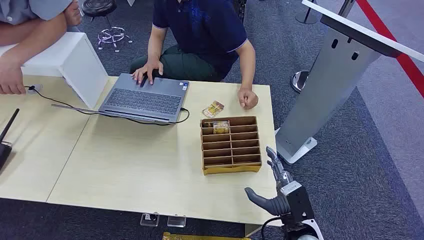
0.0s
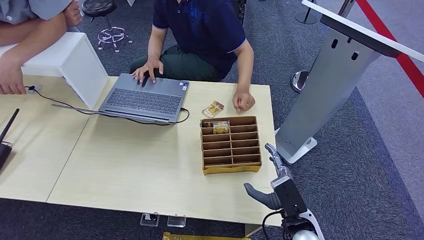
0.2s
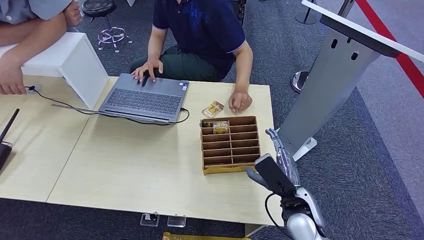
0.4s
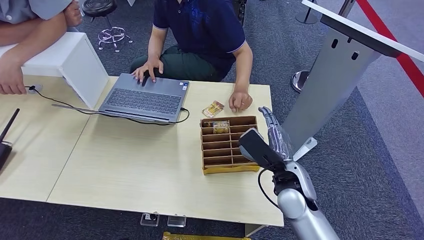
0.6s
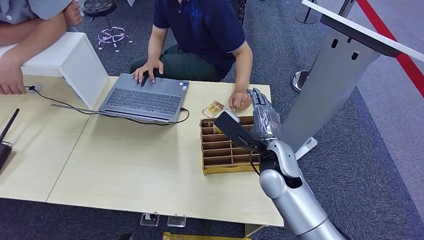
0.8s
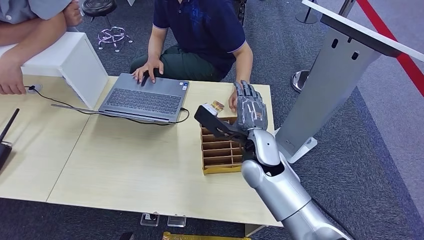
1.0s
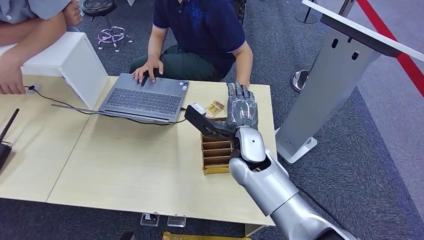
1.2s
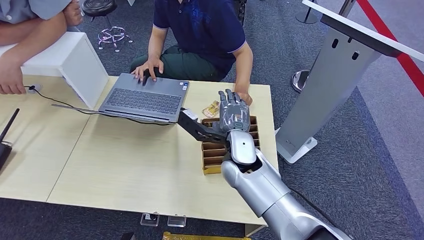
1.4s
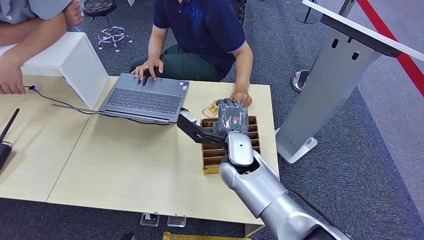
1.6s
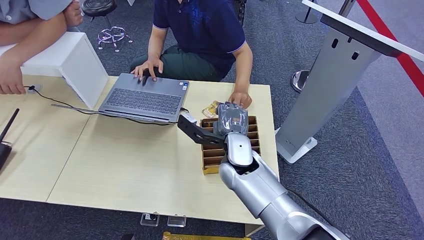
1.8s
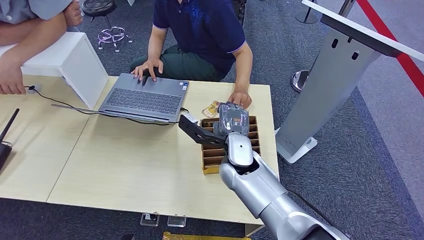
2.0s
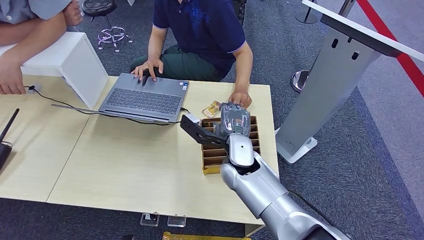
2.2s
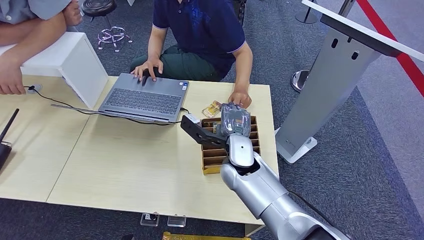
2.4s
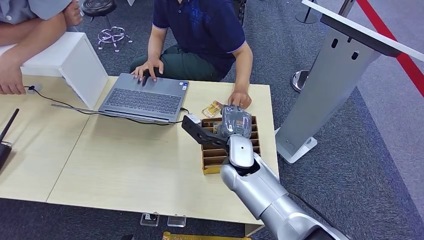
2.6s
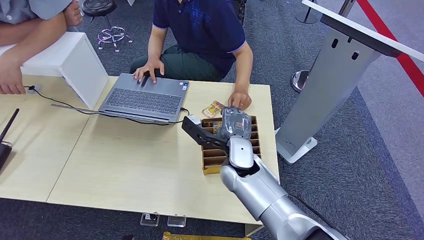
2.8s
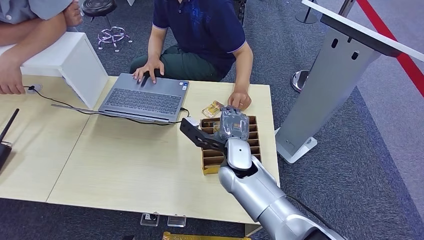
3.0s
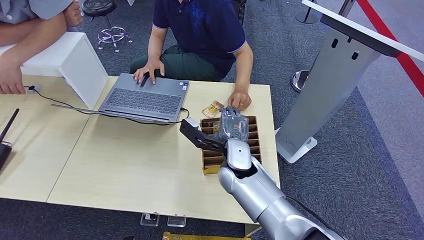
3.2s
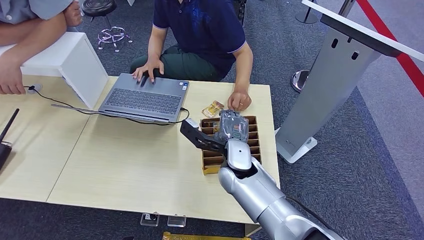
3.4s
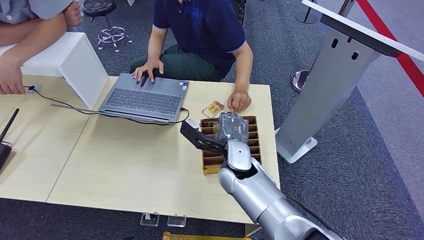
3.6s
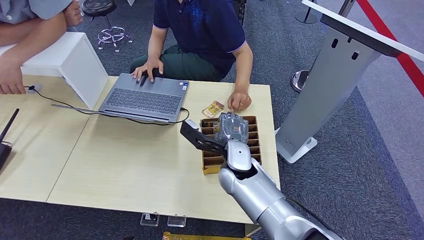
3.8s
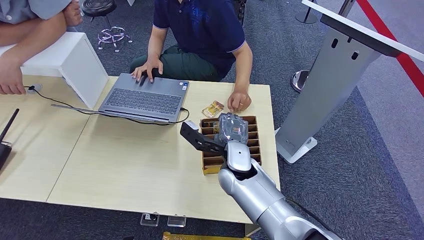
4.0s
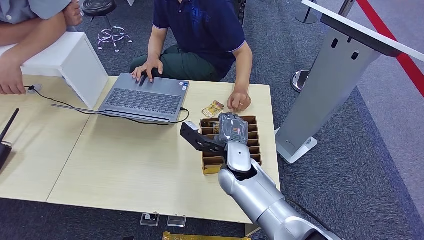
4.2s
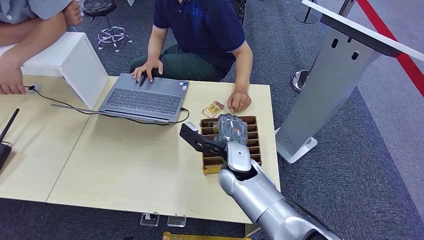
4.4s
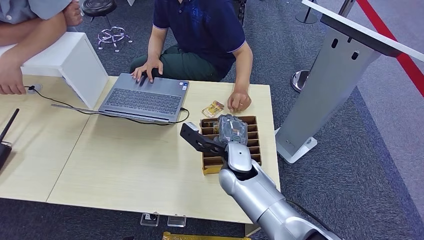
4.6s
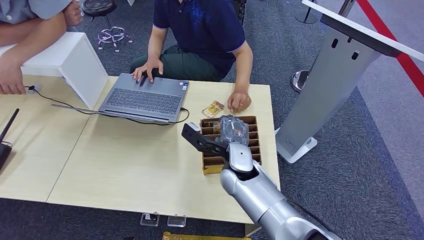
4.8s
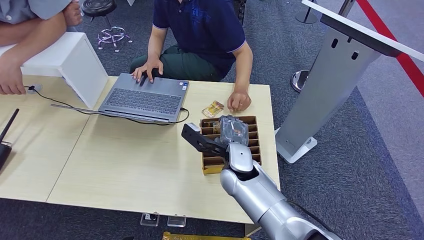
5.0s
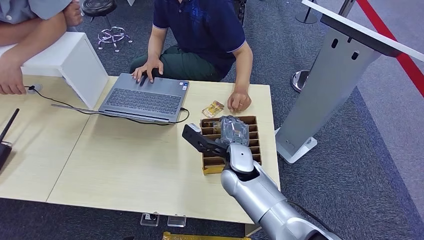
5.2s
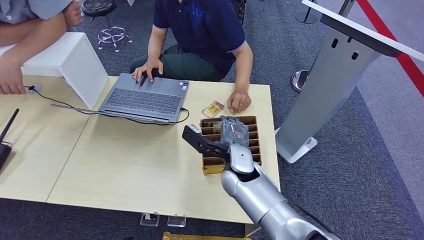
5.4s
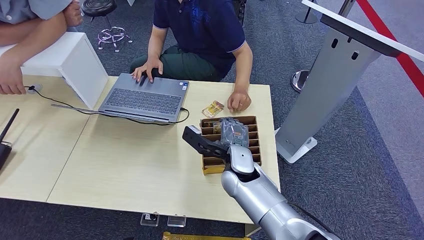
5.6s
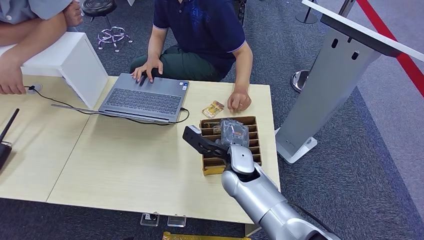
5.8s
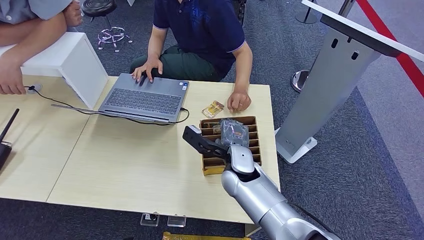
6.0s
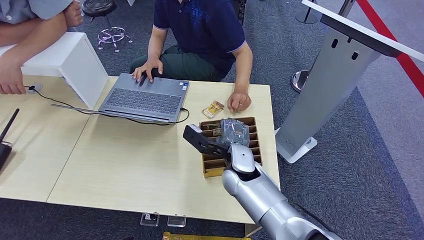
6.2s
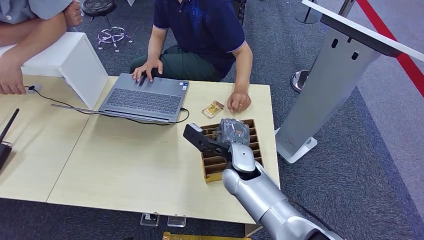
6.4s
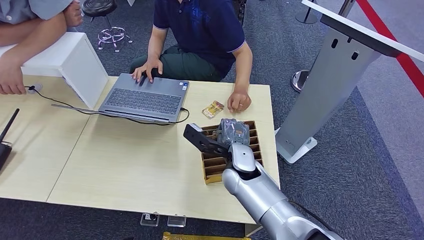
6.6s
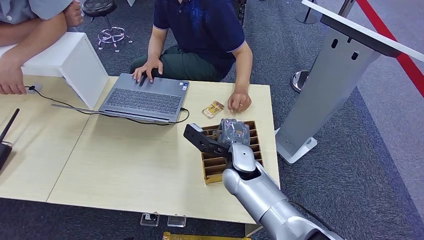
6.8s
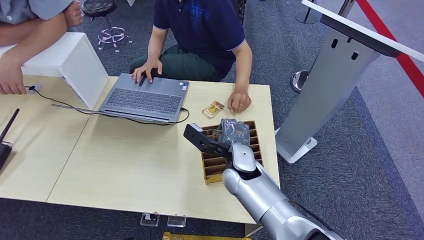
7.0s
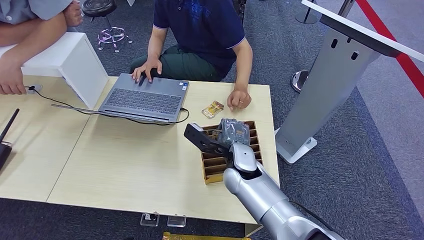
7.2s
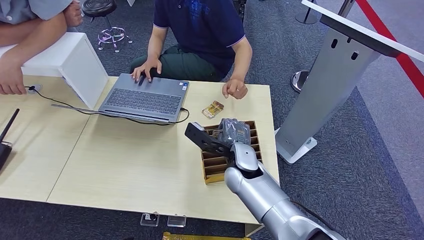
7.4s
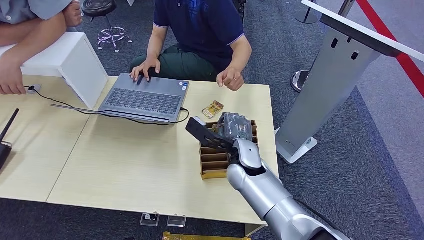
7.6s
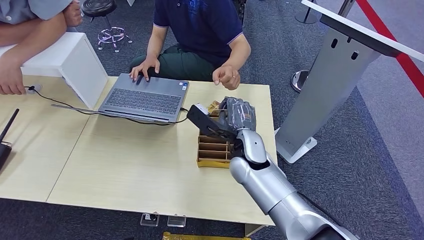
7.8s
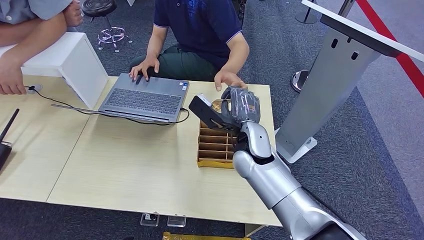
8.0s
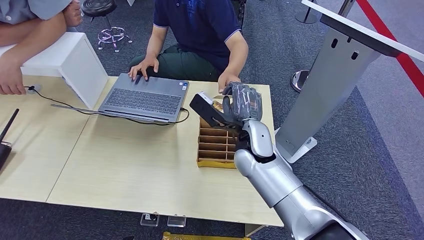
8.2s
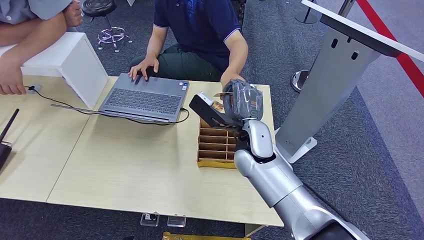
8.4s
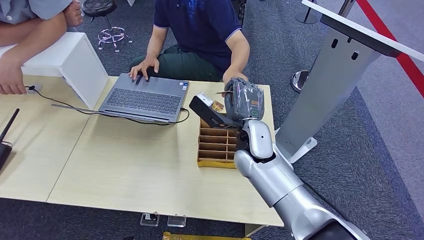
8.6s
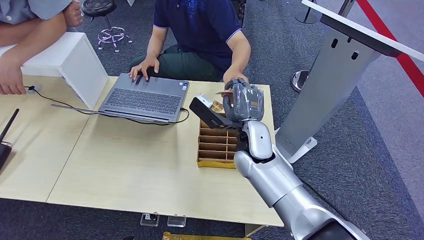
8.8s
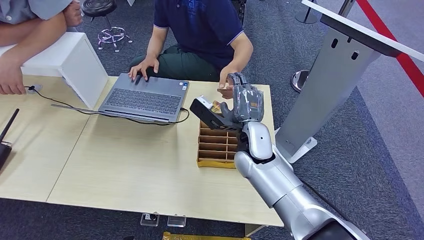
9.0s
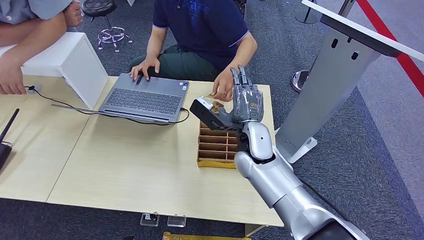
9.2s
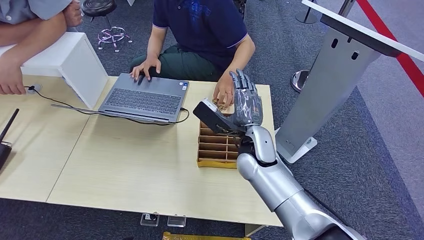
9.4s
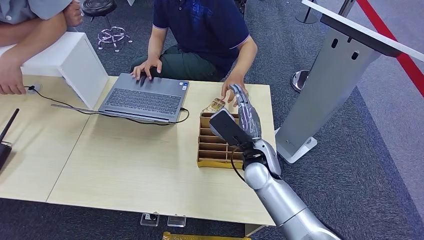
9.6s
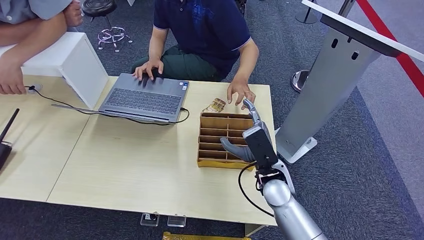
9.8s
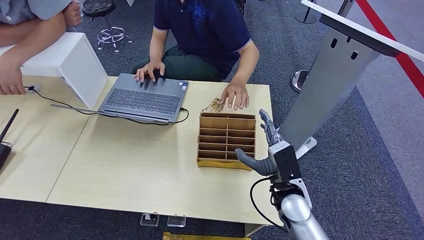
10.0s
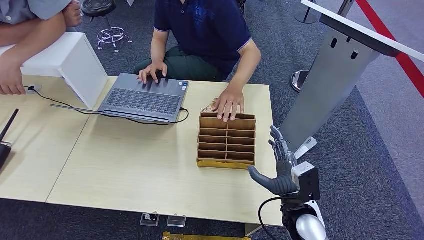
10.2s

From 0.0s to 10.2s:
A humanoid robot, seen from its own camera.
Step, from 0.0s to 7.8s: Pick up the key card from the card box.
Step, from 8.0s to 10.2s: Hand the key card to the target.
From 1.4s to 3.0s: There are only small adjustments of the hands.
From 3.0s to 4.4s: Both hands stay put.
From 4.4s to 5.8s: The two hands keep their place.
From 5.8s to 7.2s: The two hands keep their place.
From 7.2s to 8.8s: The right hand moves upward, approximately 5 cm.
From 8.8s to 10.2s: The right hand shifts some 20 cm to the right, backward and downward.

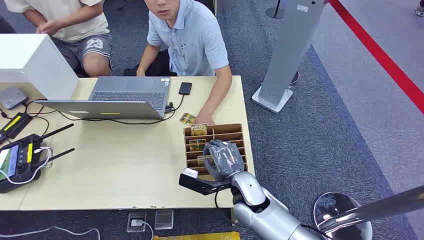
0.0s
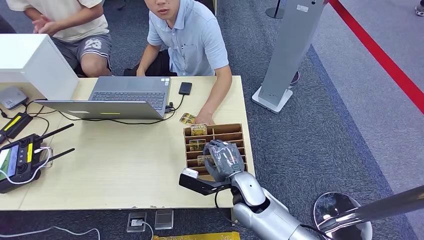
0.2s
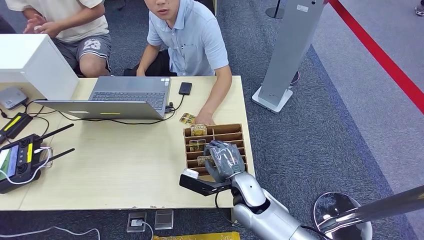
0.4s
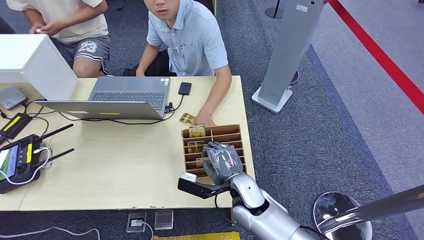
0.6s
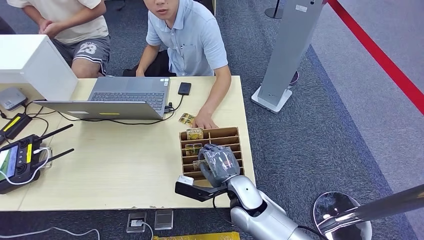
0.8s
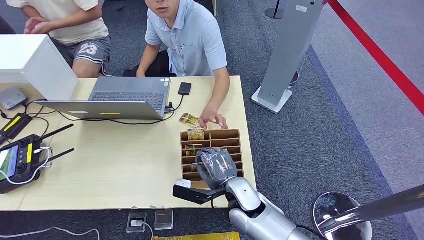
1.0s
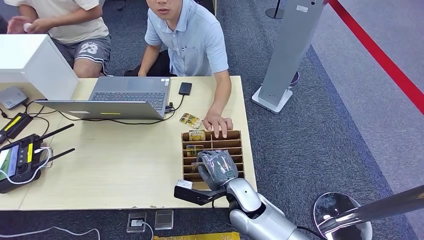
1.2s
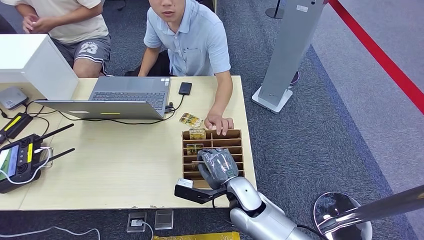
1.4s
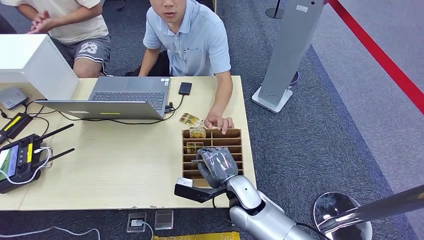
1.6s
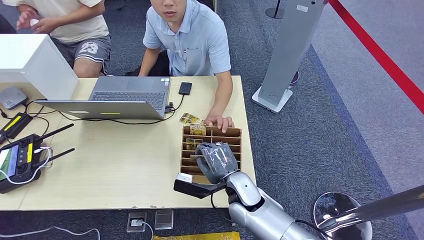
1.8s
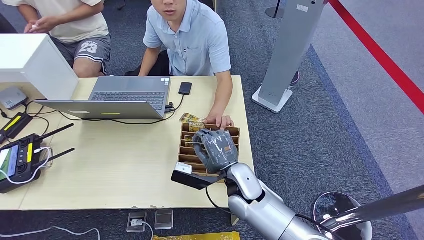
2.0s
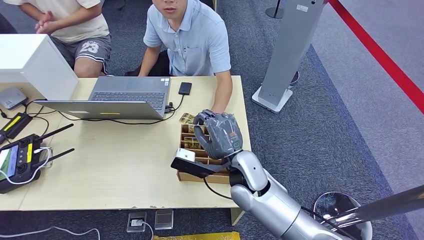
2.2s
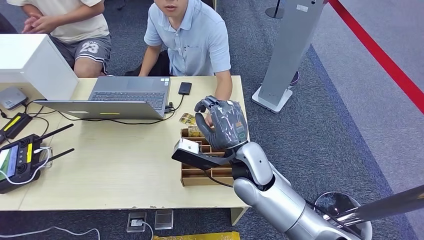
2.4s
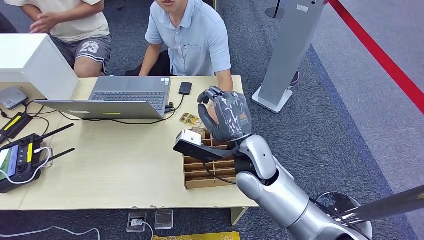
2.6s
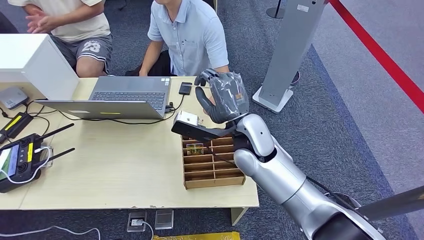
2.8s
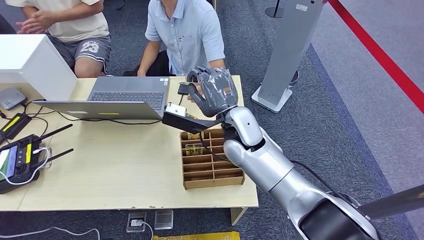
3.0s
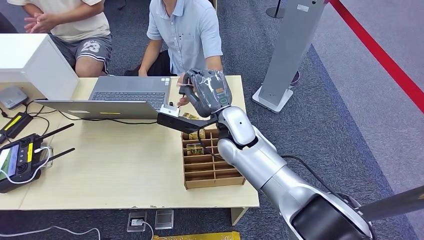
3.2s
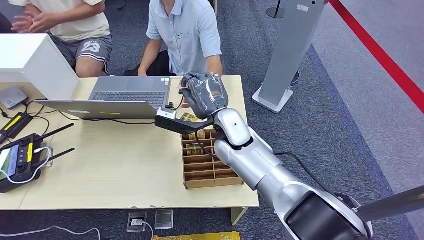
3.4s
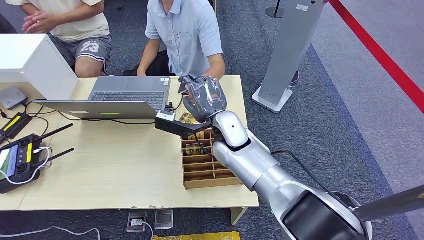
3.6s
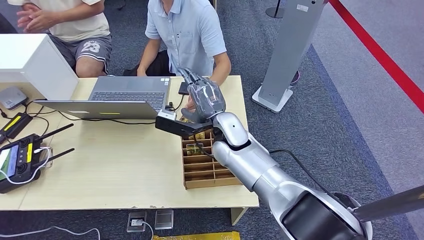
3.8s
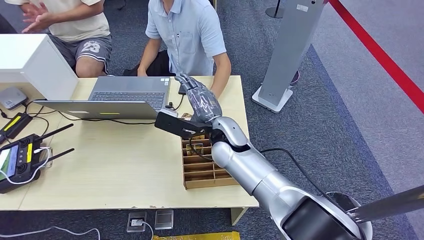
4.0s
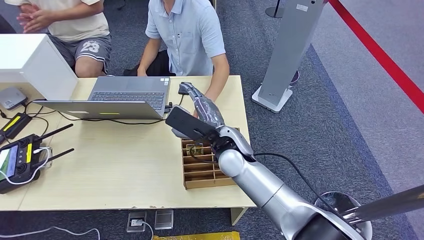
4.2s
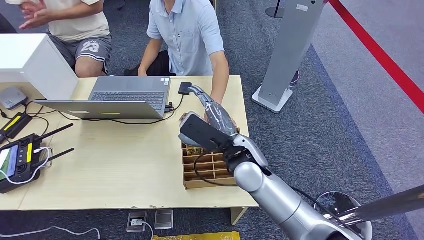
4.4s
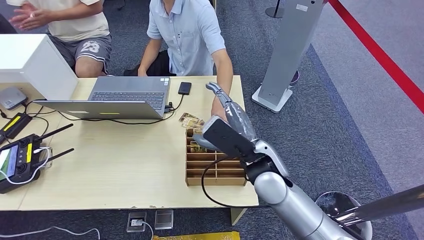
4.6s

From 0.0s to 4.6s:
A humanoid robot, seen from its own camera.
Step, from 0.0s to 2.2s: Pick up the key card from the card box.
Step, from 3.0s to 4.6s: Hand the key card to the target.
From 1.6s to 3.0s: The right hand travels upward and forward by roughly 20 cm. The left hand travels to the left by about 15 cm.
From 3.0s to 4.6s: The right hand heads backward, covering approximately 10 cm.

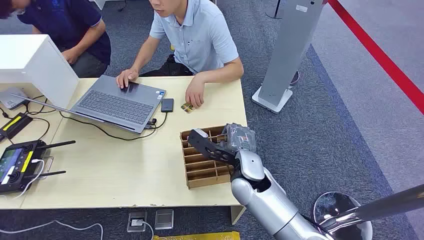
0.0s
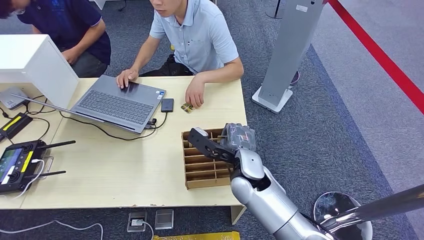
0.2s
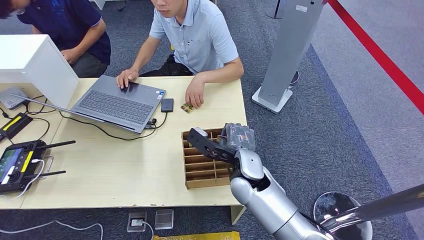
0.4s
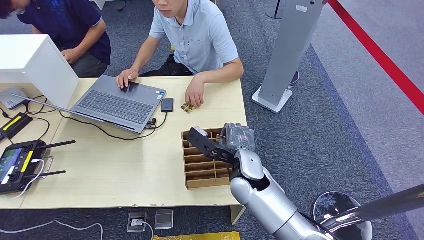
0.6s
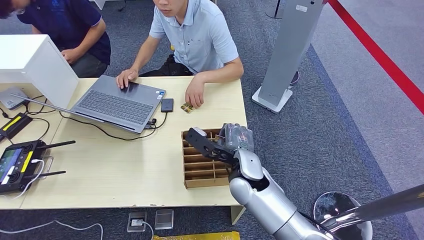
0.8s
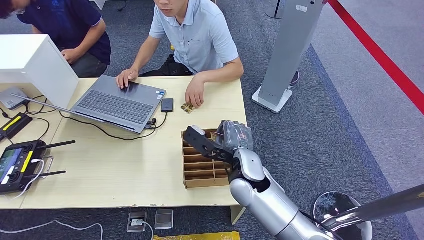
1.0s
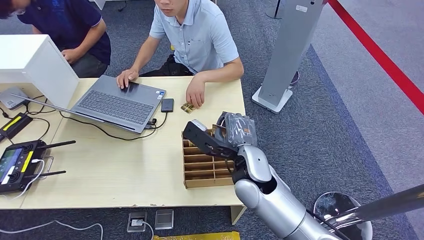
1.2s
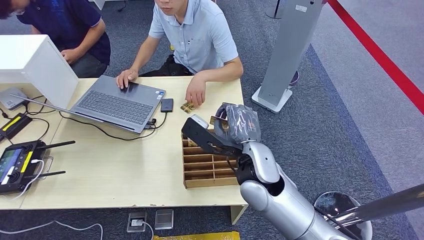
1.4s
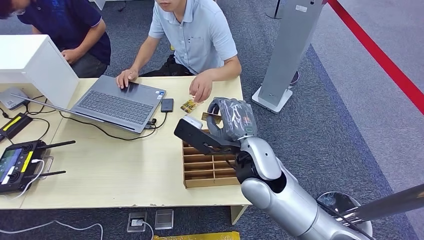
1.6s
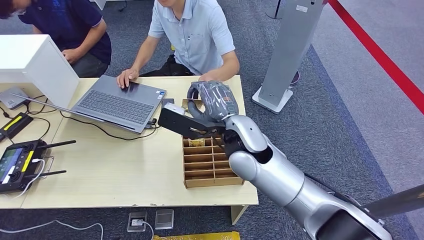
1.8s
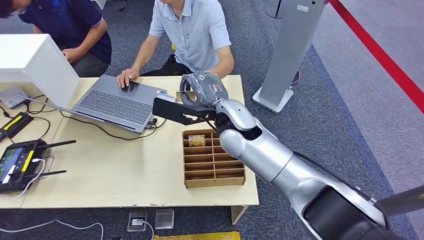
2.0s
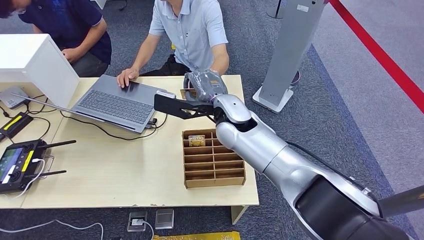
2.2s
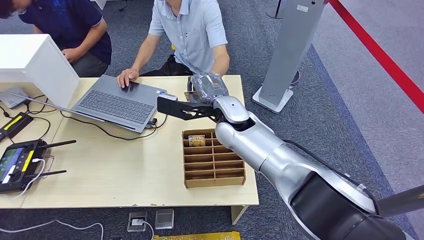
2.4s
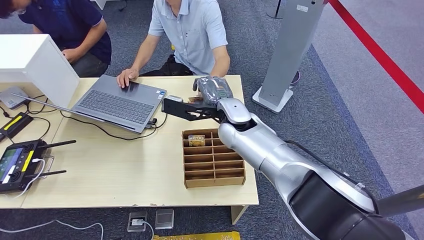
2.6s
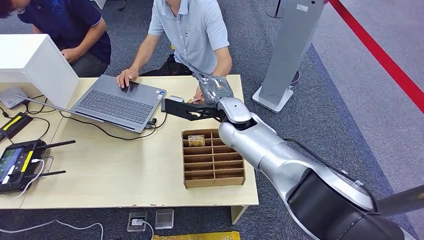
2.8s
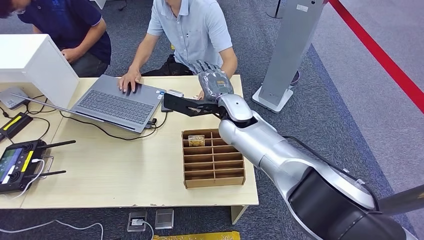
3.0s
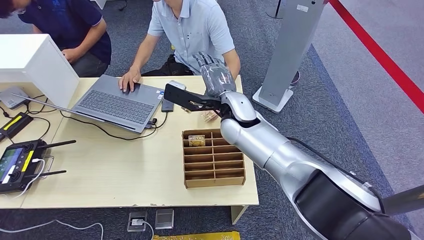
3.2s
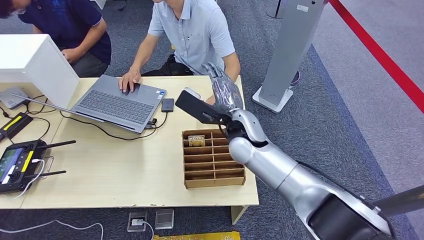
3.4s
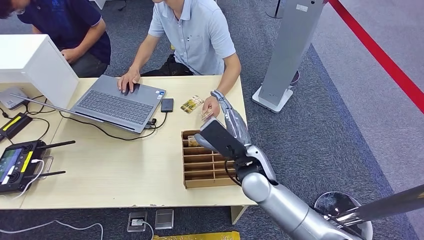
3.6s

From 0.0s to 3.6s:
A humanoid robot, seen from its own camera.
Step, from 0.0s to 1.4s: Pick up the key card from the card box.
Step, from 1.8s to 3.6s: Hand the key card to the target.
From 1.8s to 3.6s: The right hand shifts some 10 cm downward, and reaches approximately 10 cm forward, then returns.
